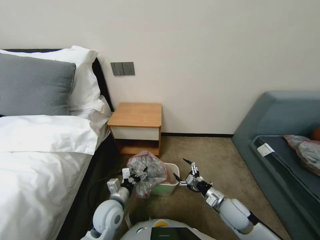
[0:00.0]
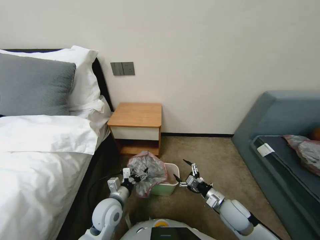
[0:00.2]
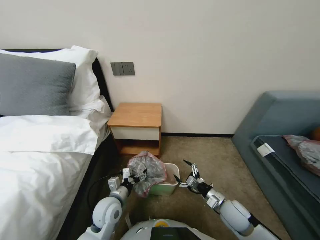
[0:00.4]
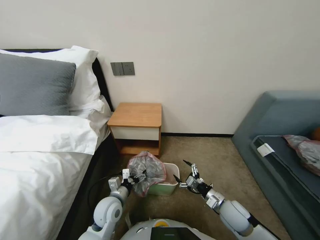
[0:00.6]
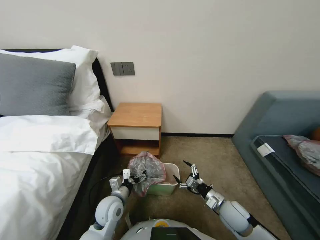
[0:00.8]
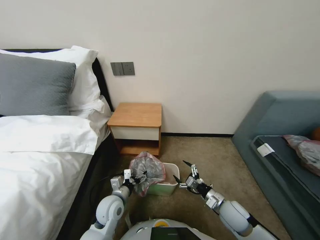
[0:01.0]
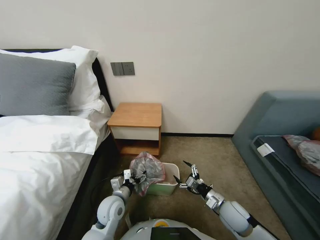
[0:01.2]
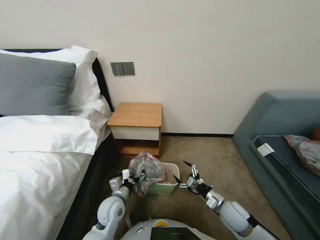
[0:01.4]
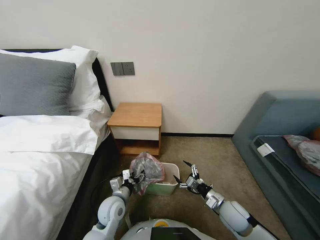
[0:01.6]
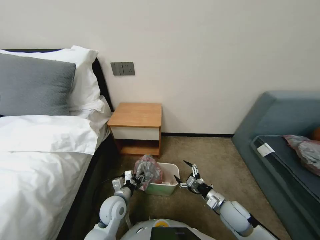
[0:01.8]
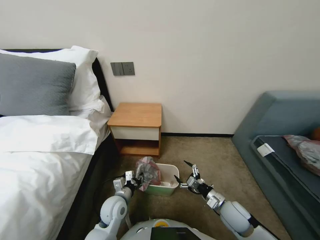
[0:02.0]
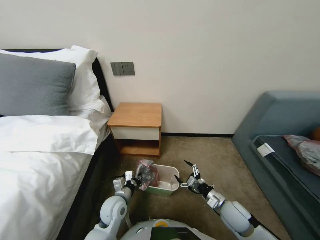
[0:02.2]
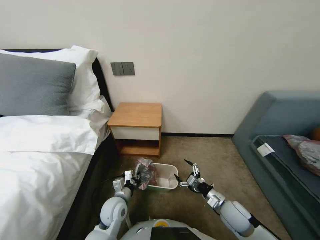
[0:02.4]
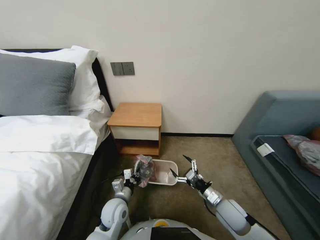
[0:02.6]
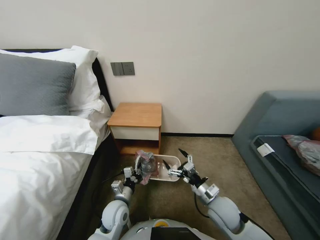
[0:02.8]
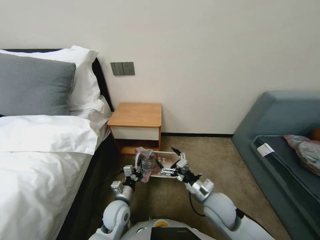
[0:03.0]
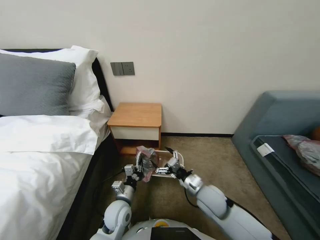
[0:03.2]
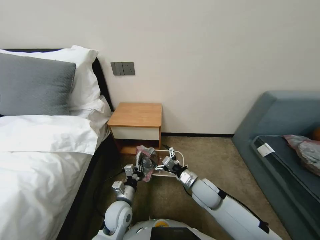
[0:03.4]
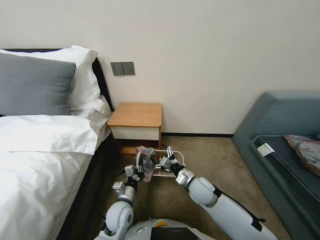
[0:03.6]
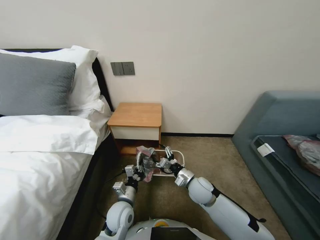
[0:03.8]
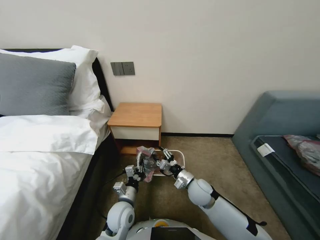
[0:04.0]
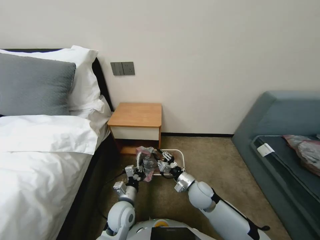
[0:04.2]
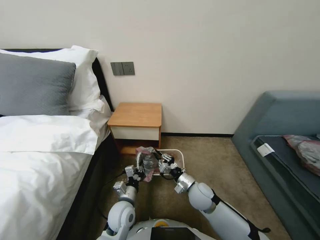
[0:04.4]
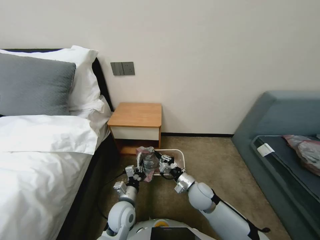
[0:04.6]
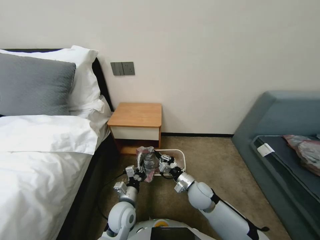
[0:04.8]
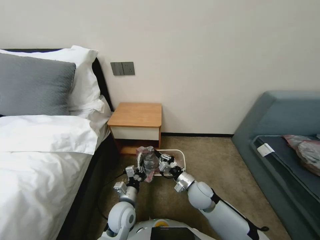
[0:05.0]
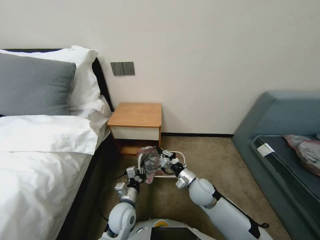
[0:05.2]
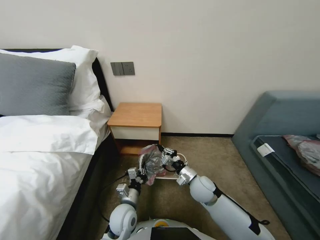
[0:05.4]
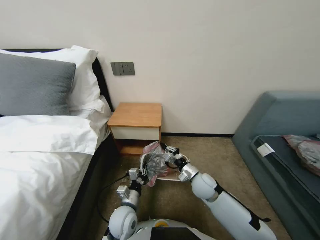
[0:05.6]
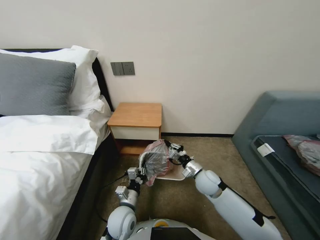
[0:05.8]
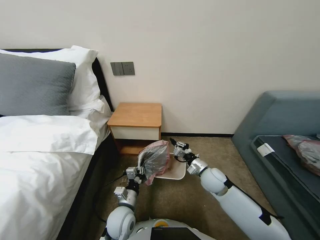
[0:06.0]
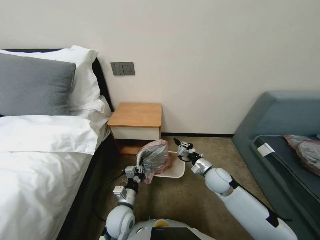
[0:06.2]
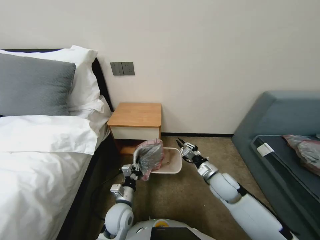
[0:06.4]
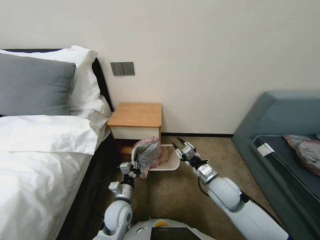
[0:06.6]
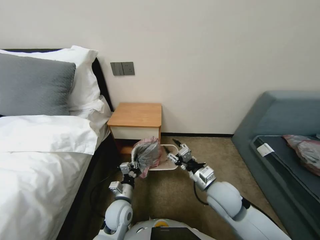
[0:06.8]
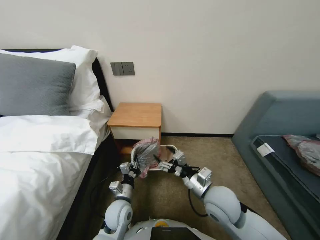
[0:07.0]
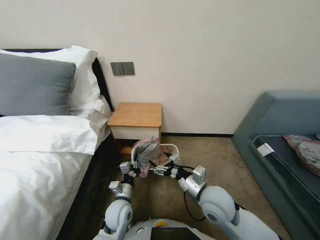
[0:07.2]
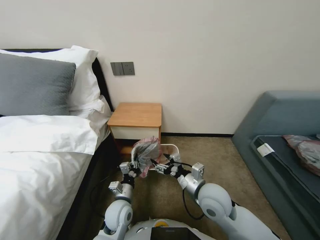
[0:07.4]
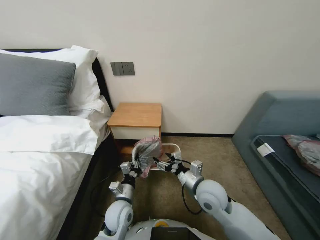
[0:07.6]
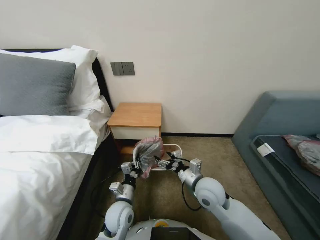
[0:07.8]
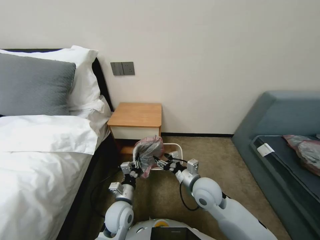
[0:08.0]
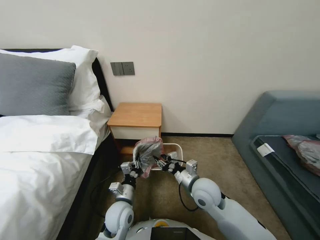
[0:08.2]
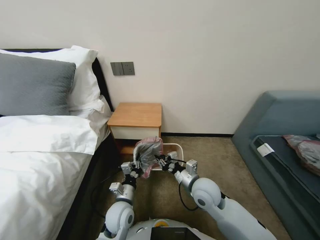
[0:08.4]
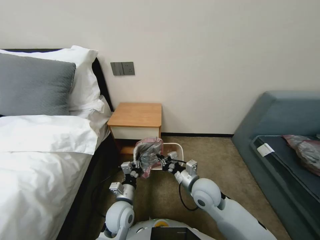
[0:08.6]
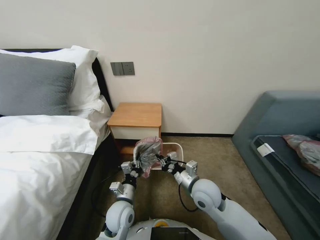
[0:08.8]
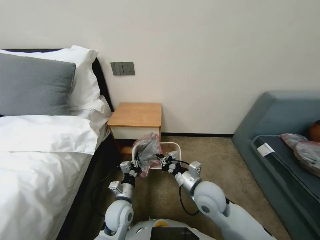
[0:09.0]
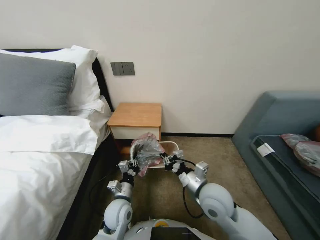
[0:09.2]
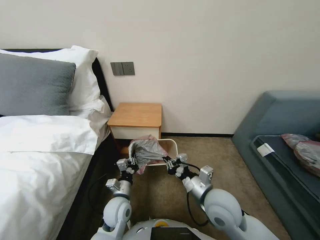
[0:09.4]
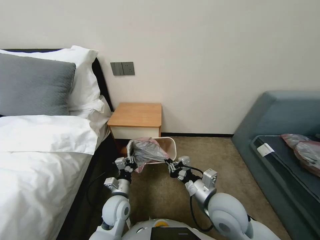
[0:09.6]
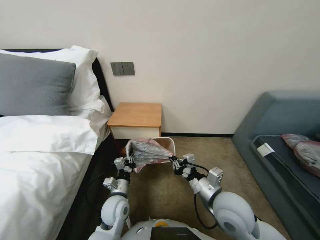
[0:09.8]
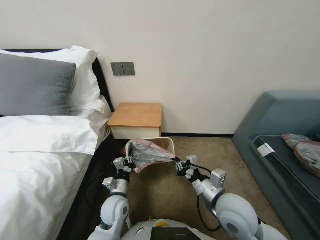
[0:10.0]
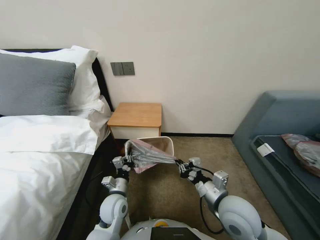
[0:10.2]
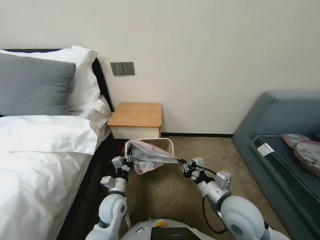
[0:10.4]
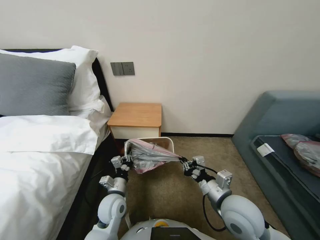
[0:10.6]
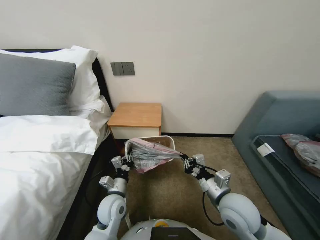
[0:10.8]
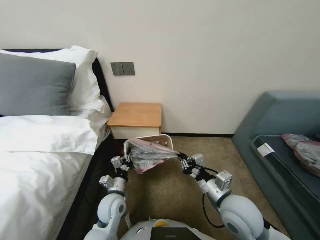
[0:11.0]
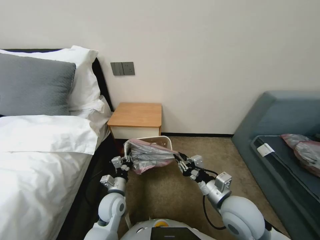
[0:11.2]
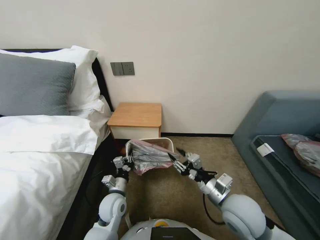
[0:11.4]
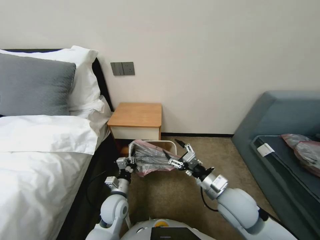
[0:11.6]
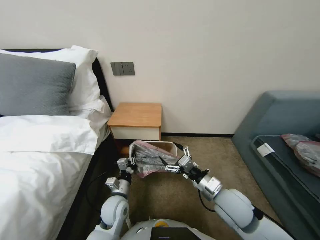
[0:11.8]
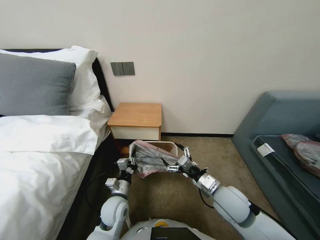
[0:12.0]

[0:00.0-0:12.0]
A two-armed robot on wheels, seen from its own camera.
Task of the whole recording: Pick up the garbage bag from the table and place it over the trash can.
0:00.0 to 0:01.6: There are only small adjustments of the grippers.
0:01.6 to 0:03.0: The right gripper goes approximately 10 cm to the left and upward. Meanwhile the left gripper closes up.
0:03.0 to 0:04.4: The right gripper travels forward by roughly 5 cm, and closes up.
0:04.4 to 0:06.0: The right gripper heads to the right and forward, covering roughly 5 cm.
0:06.0 to 0:07.6: The right gripper goes about 10 cm backward, upward and to the left, and opens up.
0:07.6 to 0:09.0: The right gripper closes.
0:09.0 to 0:10.4: The right gripper heads backward and to the right, covering some 10 cm.
0:10.4 to 0:12.0: The right gripper opens.

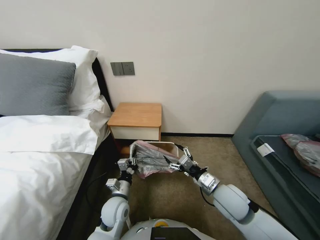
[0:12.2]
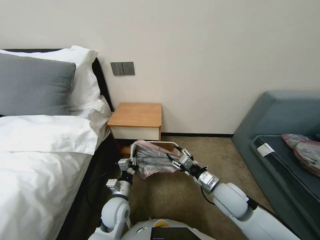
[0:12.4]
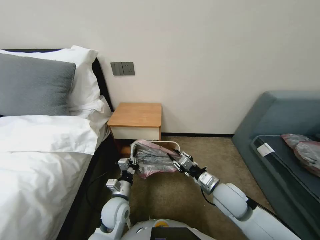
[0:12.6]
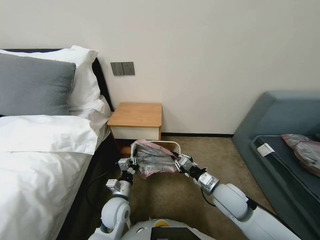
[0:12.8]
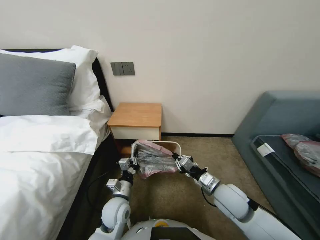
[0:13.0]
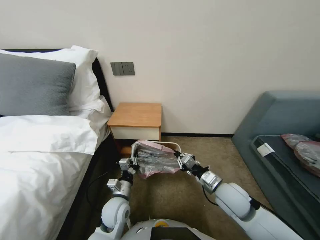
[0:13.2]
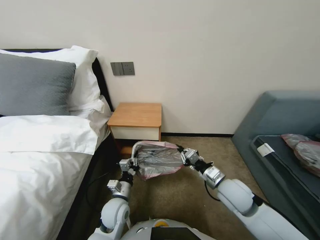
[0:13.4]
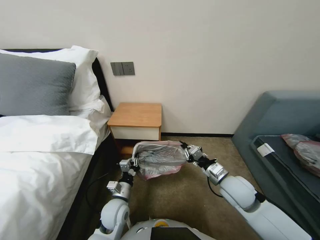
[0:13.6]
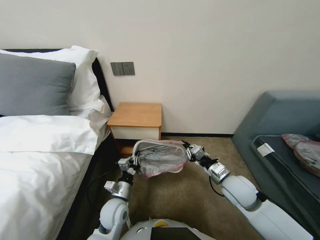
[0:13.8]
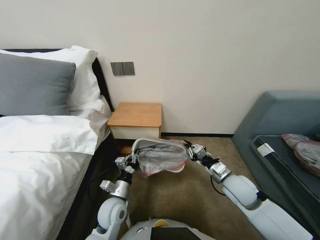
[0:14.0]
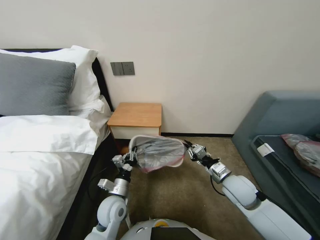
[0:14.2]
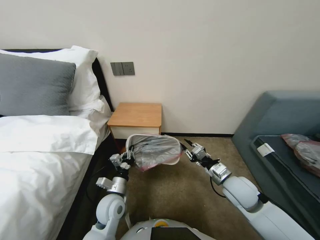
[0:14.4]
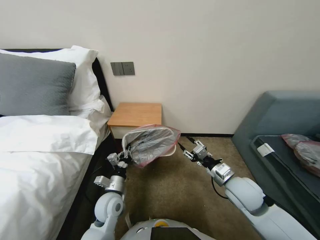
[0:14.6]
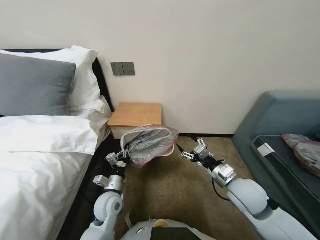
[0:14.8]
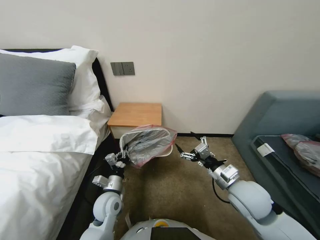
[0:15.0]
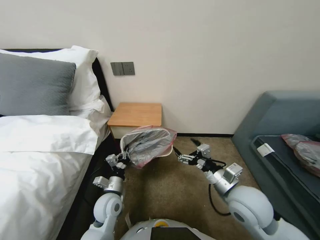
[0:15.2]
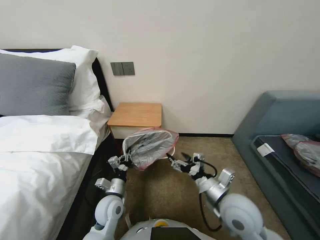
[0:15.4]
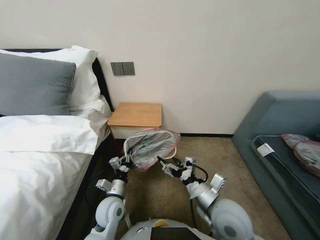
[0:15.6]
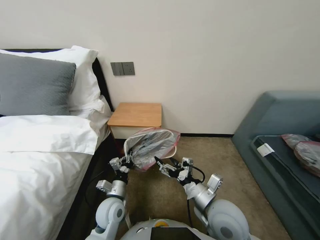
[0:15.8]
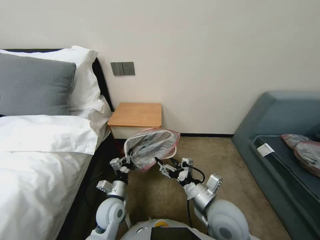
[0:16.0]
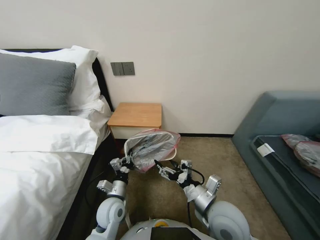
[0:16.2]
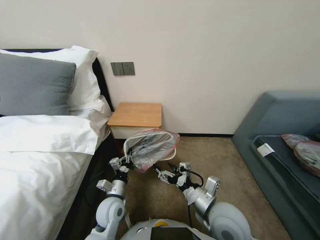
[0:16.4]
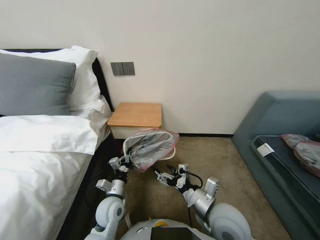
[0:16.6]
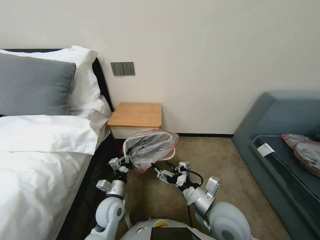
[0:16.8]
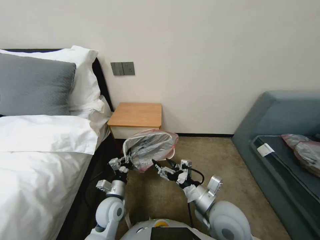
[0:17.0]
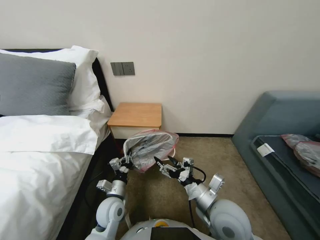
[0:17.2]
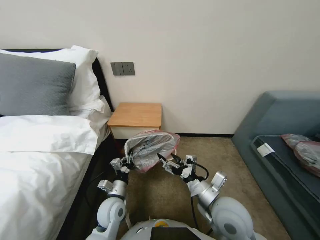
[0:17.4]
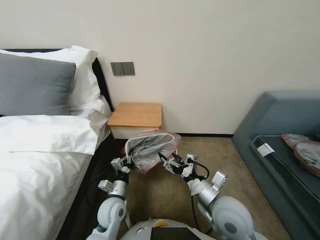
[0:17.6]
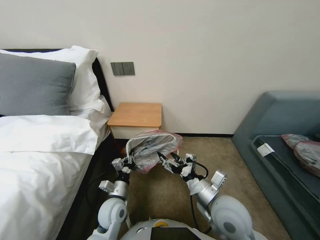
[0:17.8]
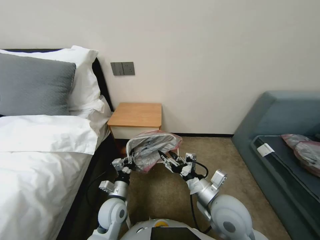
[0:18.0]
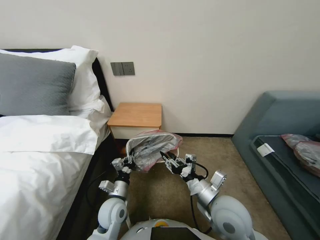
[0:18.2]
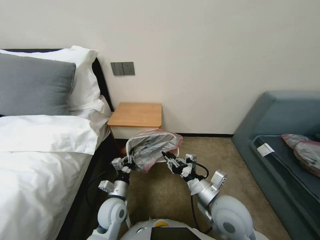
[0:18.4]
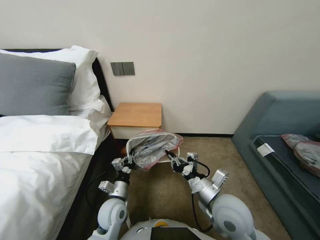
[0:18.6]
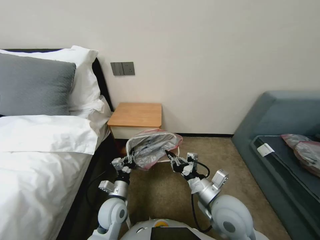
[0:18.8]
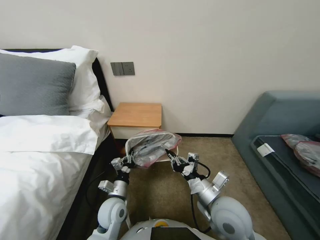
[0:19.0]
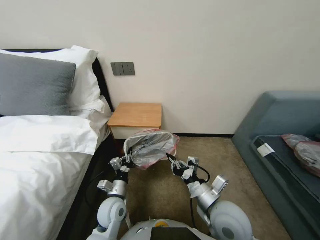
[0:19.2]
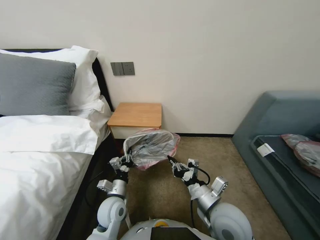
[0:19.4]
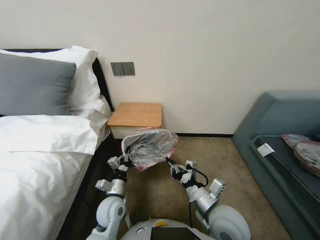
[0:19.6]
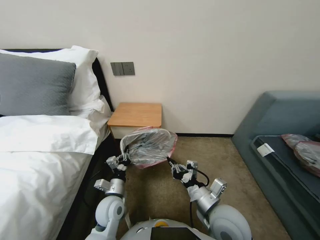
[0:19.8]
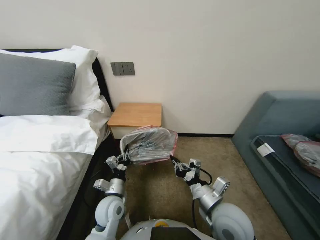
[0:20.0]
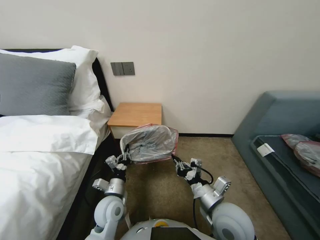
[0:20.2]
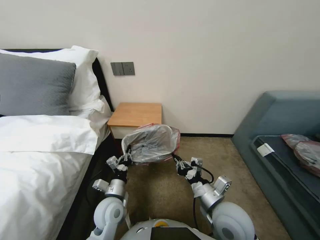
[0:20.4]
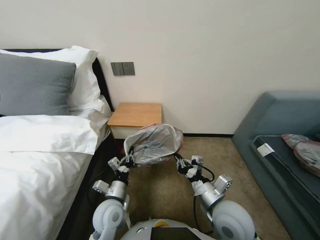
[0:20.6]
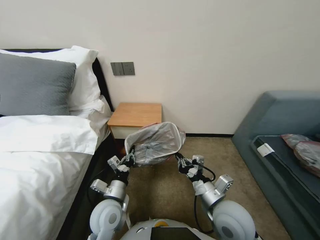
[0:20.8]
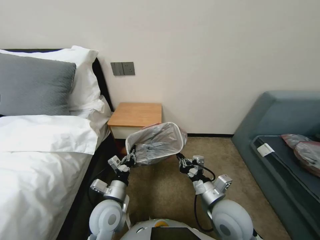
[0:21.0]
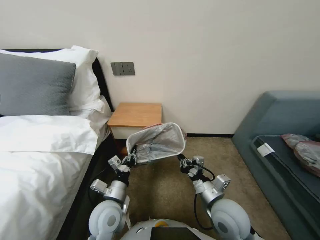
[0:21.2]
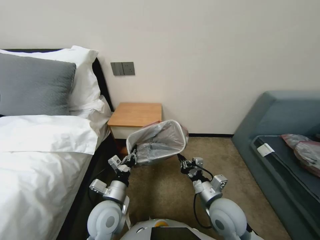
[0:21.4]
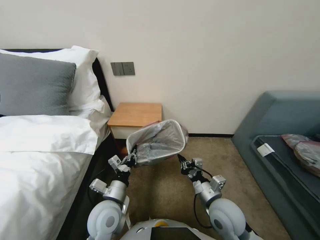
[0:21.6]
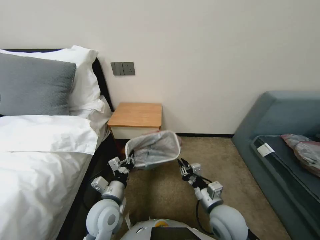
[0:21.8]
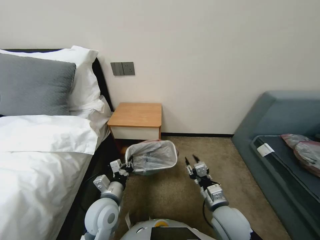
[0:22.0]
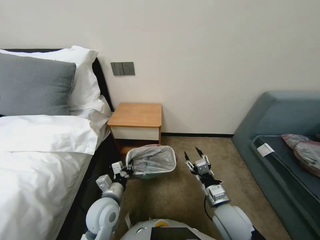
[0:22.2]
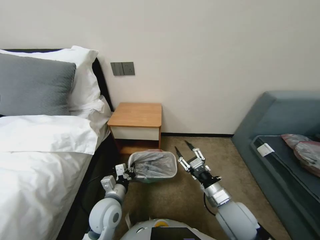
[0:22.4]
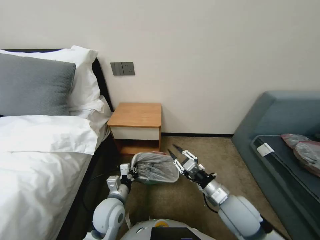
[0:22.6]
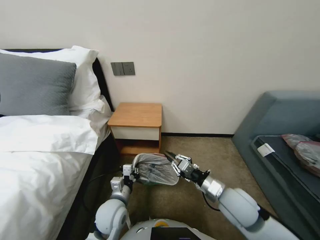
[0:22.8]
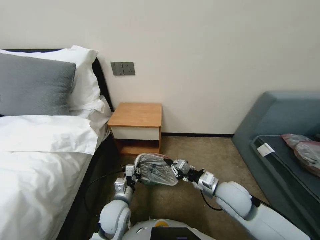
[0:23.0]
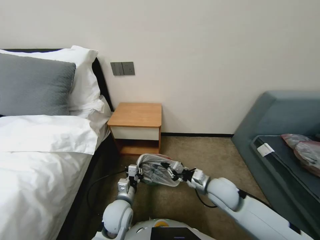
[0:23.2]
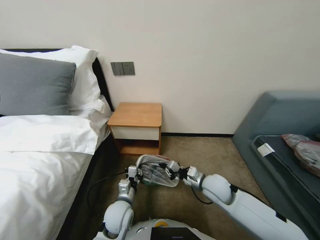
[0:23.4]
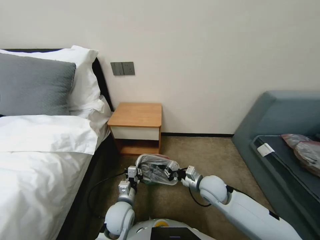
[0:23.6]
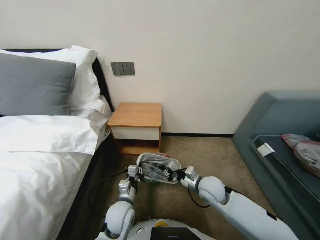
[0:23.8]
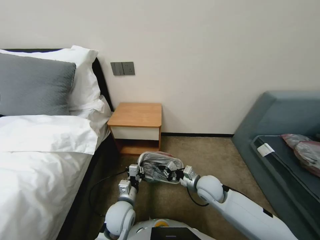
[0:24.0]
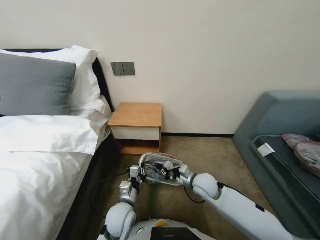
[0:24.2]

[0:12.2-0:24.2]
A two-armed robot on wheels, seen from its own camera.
Task of the whole recording: Pick up the garbage bag from the table and place it over the trash can.
0:12.2 to 0:13.8: The right gripper shifts by about 5 cm, and closes its fingers.
0:13.8 to 0:15.2: The right gripper moves upward and backward, some 5 cm, and opens.
0:15.2 to 0:16.6: The right gripper is displaced to the left by some 5 cm.
0:16.6 to 0:18.2: The right gripper closes its fingers.
0:18.2 to 0:19.8: The right gripper closes.
0:19.8 to 0:21.2: The left gripper travels upward by approximately 5 cm.
0:21.2 to 0:22.6: The right gripper opens up.
0:22.6 to 0:24.2: The left gripper moves about 5 cm. Meanwhile the right gripper goes approximately 10 cm forward and downward, and closes.
